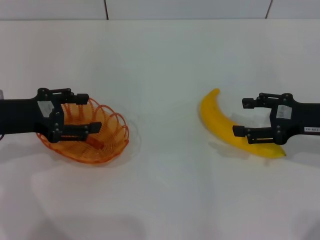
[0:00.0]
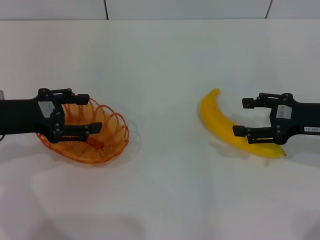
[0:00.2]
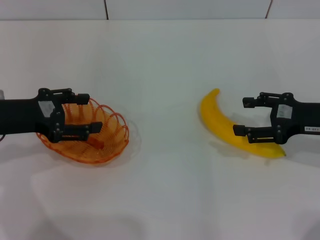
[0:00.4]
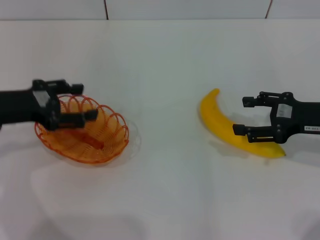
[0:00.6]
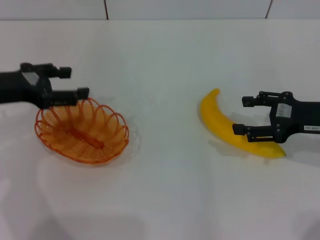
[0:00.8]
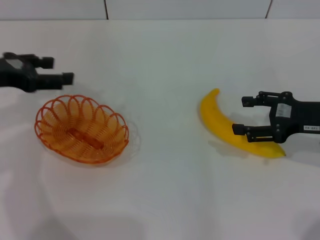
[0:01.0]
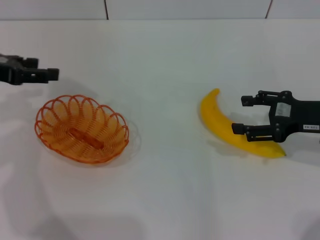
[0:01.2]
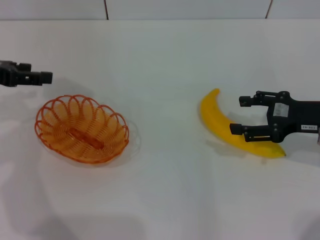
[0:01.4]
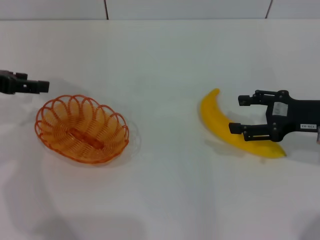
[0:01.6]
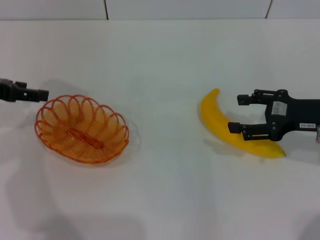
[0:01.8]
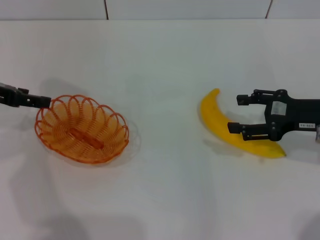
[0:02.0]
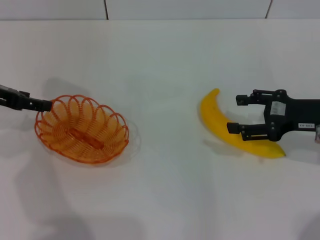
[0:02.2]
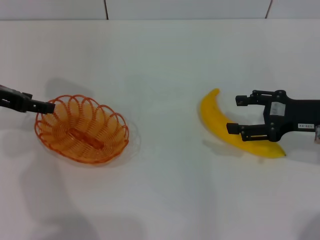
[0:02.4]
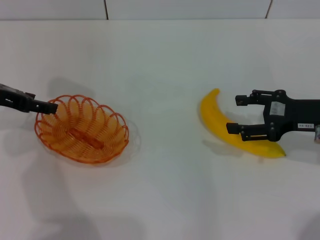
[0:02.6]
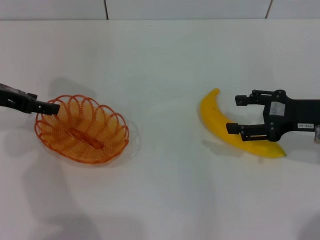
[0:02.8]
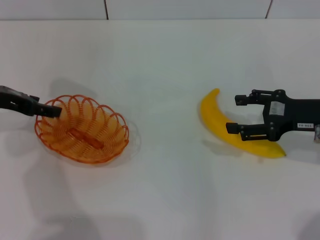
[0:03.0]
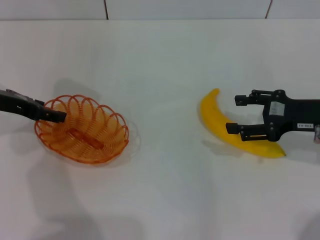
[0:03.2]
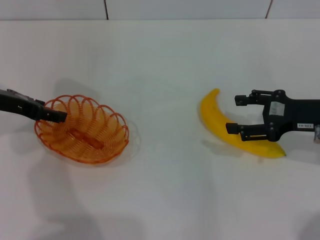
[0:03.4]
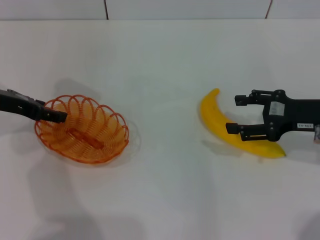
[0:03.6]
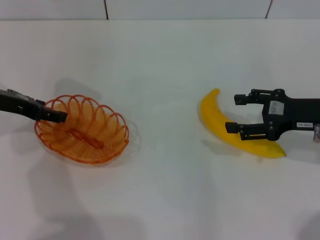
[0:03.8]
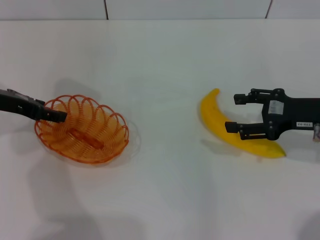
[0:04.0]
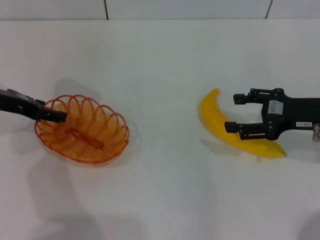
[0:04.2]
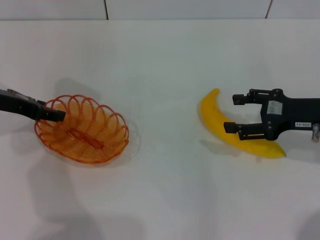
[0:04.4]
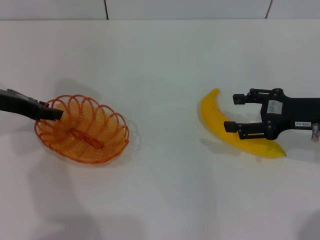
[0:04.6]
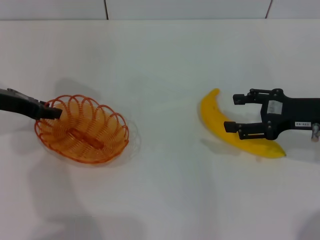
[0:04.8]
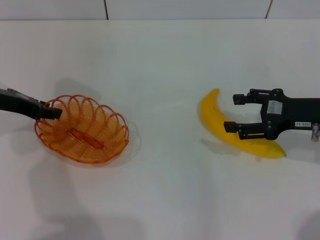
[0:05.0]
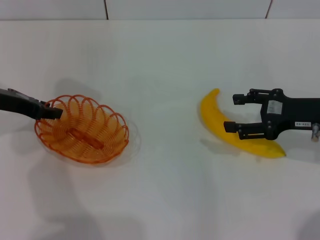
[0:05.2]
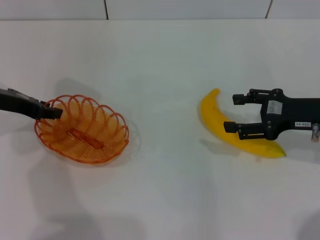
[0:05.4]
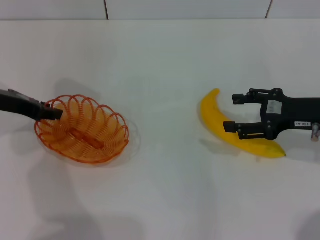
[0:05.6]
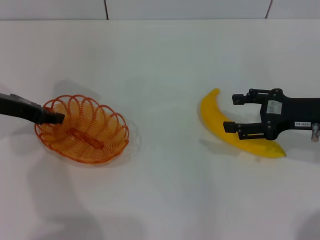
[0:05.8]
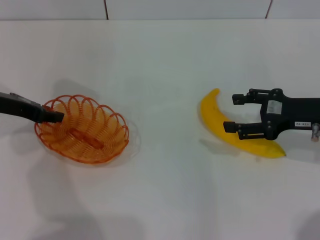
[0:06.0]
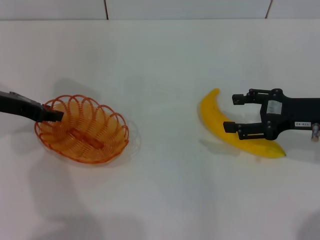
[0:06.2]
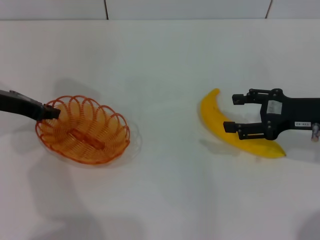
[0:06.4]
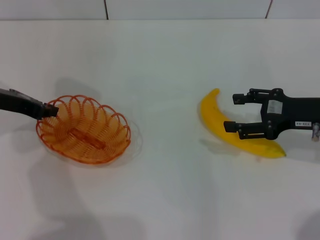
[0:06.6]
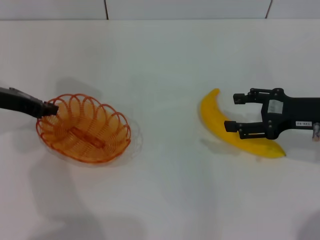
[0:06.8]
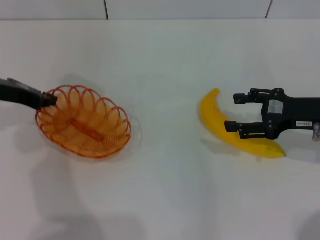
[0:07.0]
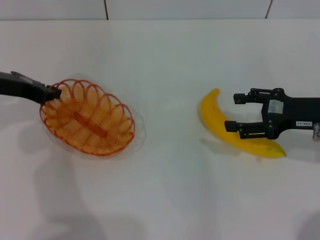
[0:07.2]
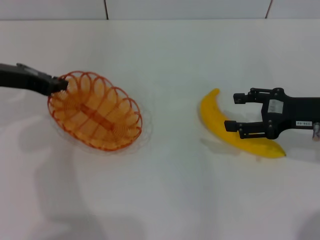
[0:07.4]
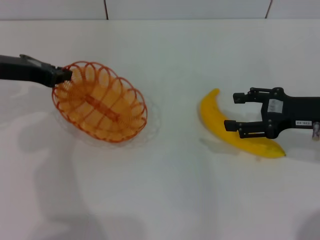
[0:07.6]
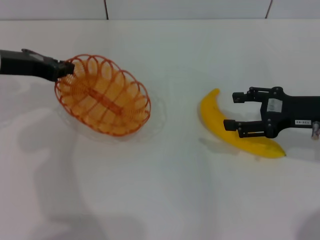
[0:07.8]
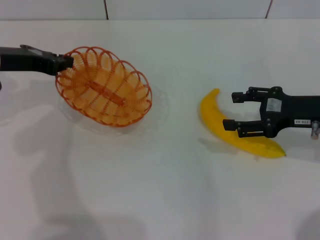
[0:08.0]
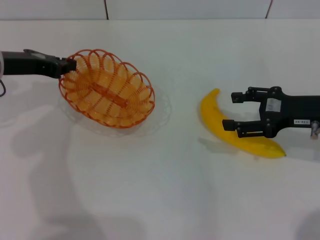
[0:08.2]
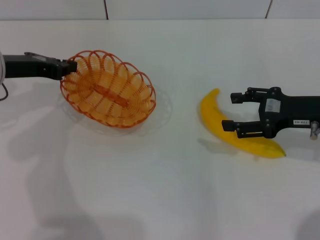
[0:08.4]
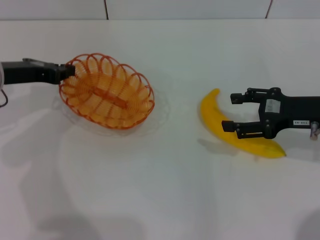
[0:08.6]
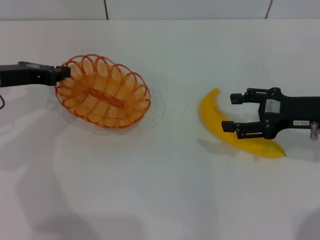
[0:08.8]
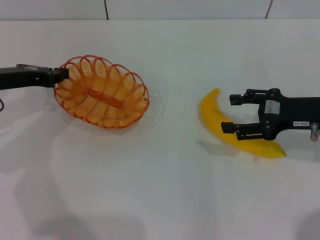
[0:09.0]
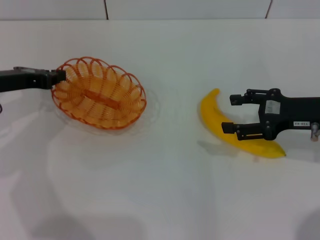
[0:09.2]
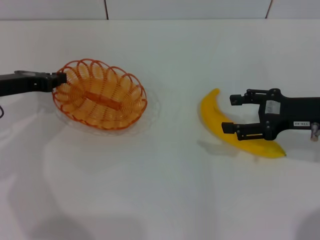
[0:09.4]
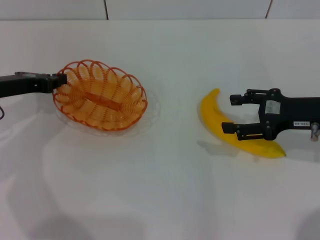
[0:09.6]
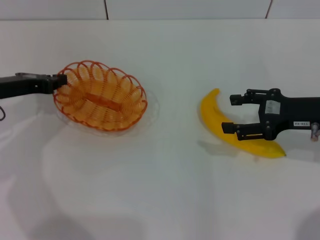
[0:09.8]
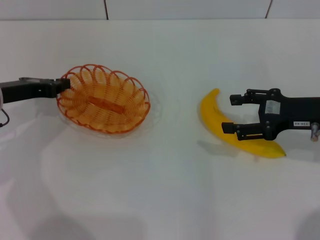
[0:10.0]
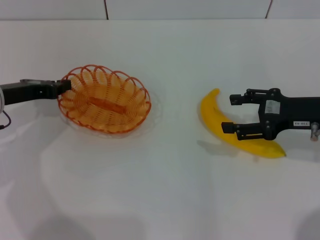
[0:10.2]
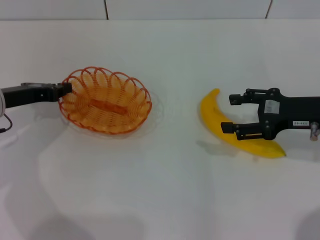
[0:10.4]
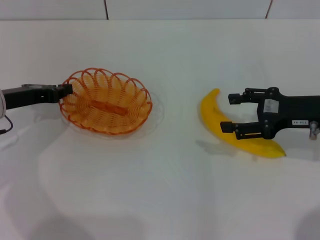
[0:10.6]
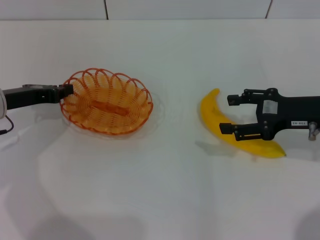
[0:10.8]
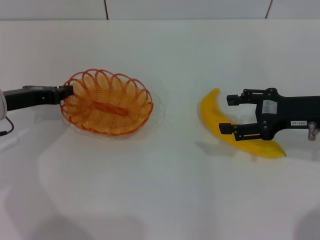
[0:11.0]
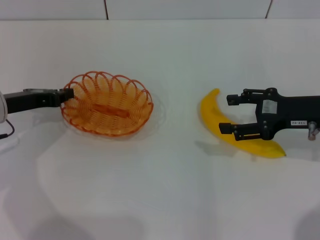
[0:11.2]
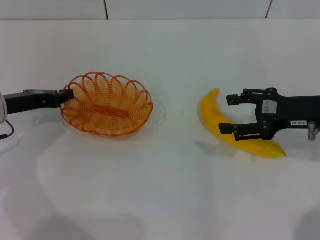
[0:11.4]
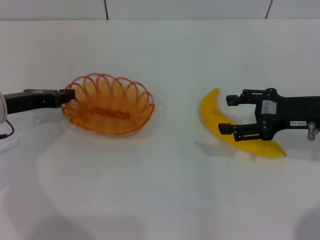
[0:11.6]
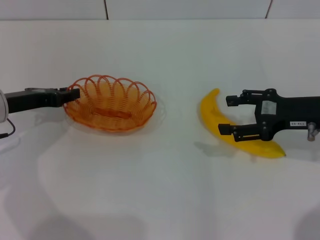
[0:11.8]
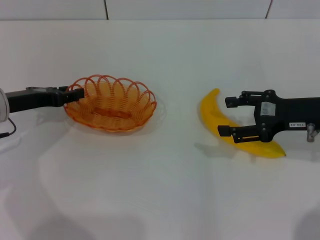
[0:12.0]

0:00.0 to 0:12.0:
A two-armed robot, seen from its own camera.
Step, 0:00.0 to 0:07.8: Pick up the basket with the left gripper.
0:00.0 to 0:01.6: The left gripper goes approximately 5 cm upward.
0:01.6 to 0:03.0: There are only small adjustments of the grippers.
0:03.0 to 0:04.4: Neither gripper changes place.
0:04.4 to 0:06.0: The left gripper closes.
0:06.0 to 0:07.6: The left gripper closes its fingers.
0:07.6 to 0:09.0: The grippers make only small movements.
0:09.0 to 0:10.4: The grippers make only small movements.
0:10.4 to 0:12.0: The left gripper opens up.

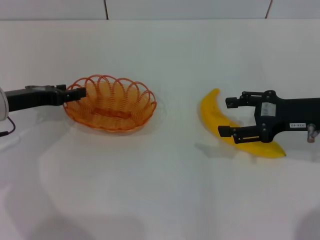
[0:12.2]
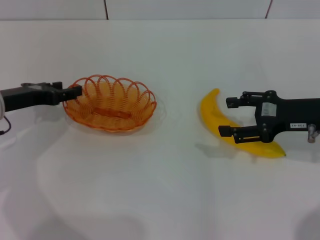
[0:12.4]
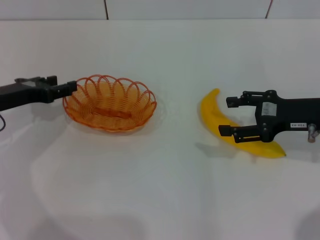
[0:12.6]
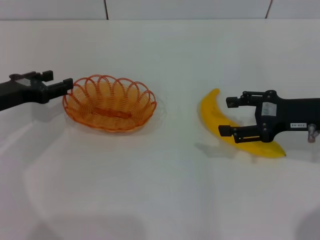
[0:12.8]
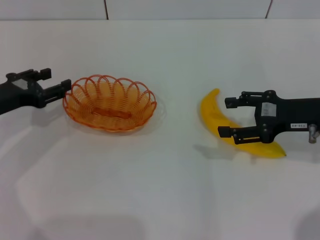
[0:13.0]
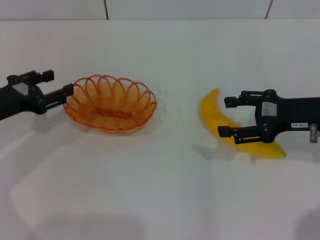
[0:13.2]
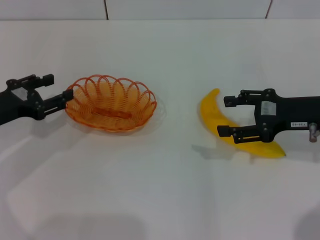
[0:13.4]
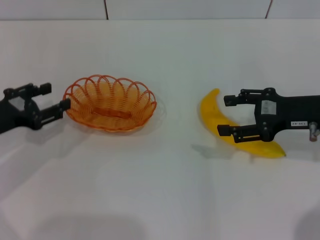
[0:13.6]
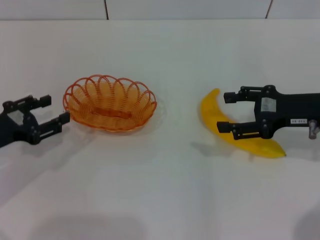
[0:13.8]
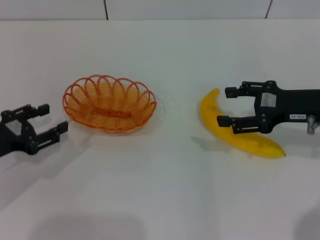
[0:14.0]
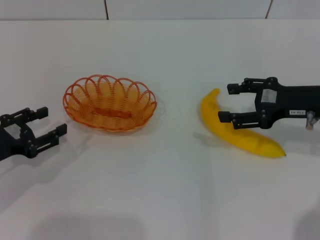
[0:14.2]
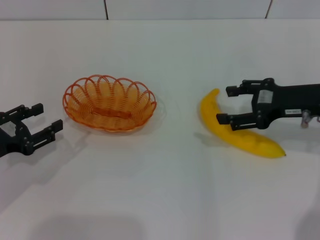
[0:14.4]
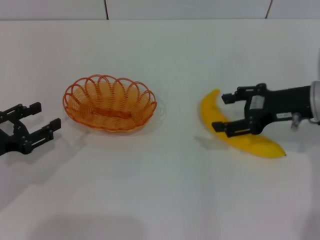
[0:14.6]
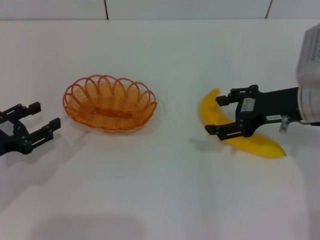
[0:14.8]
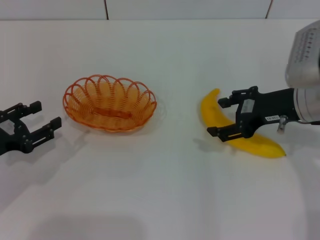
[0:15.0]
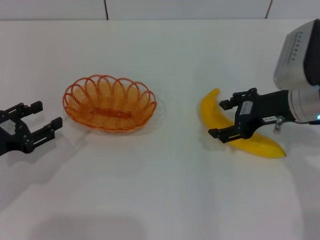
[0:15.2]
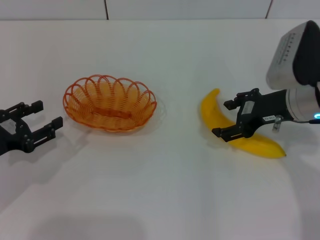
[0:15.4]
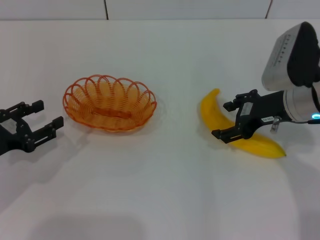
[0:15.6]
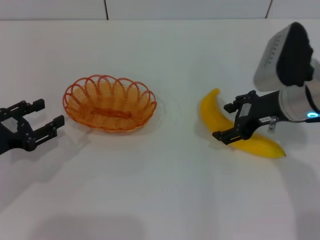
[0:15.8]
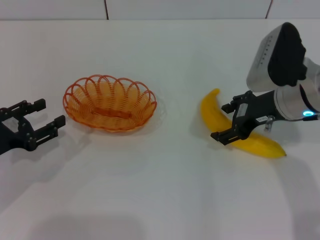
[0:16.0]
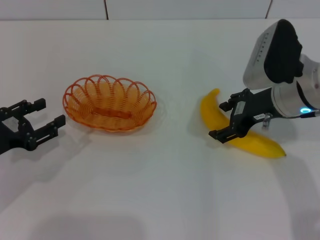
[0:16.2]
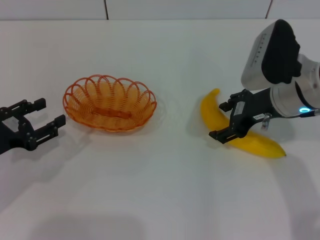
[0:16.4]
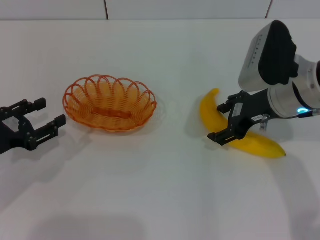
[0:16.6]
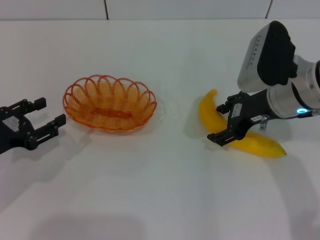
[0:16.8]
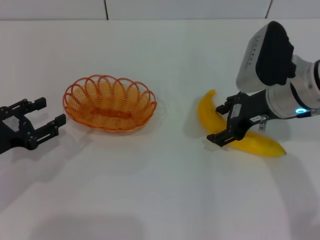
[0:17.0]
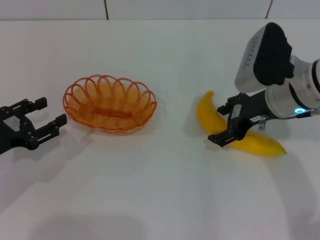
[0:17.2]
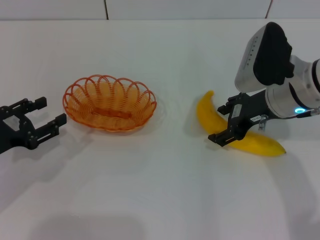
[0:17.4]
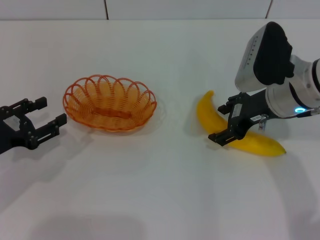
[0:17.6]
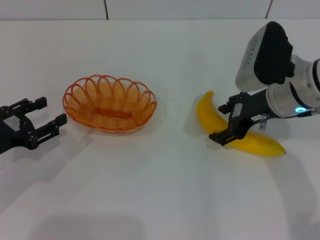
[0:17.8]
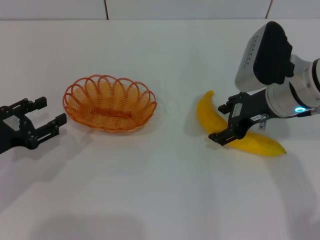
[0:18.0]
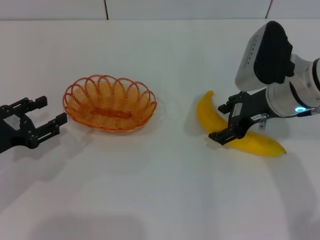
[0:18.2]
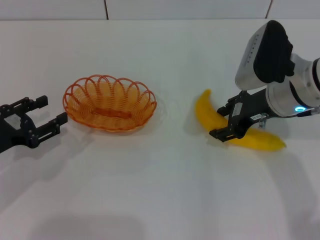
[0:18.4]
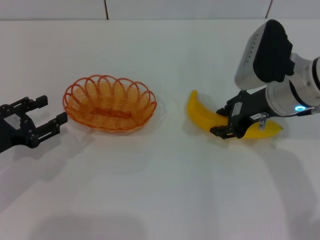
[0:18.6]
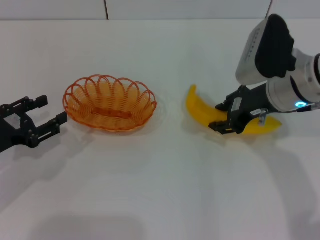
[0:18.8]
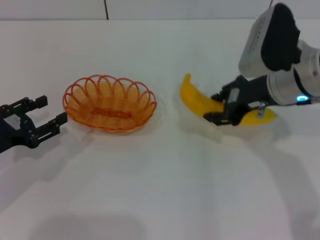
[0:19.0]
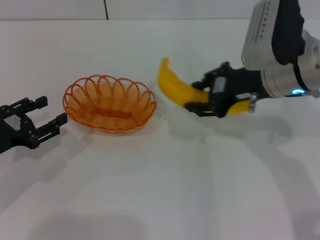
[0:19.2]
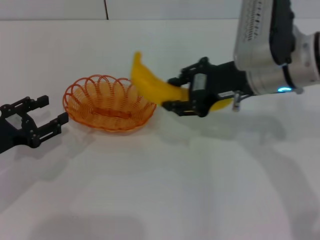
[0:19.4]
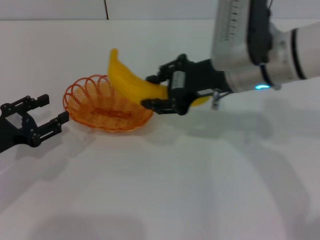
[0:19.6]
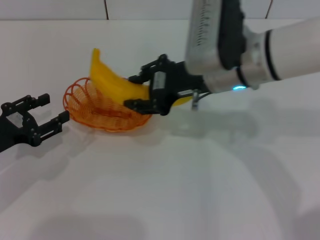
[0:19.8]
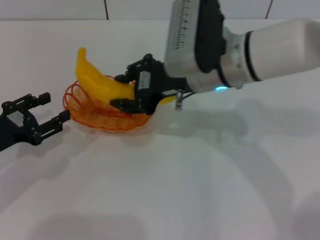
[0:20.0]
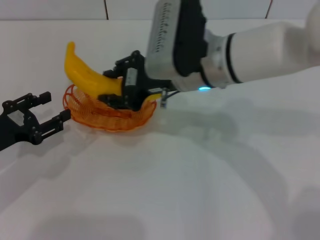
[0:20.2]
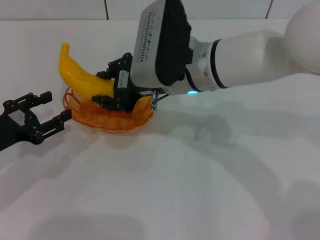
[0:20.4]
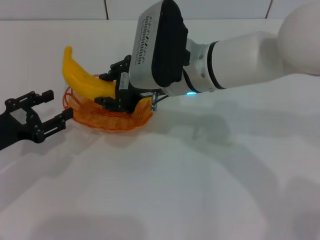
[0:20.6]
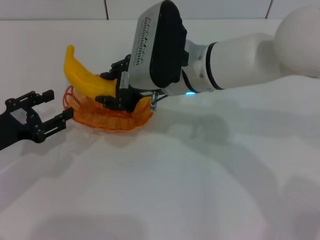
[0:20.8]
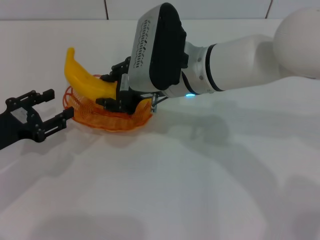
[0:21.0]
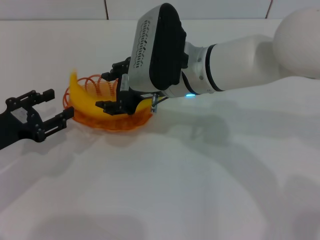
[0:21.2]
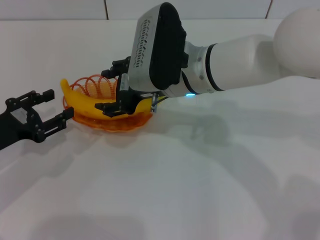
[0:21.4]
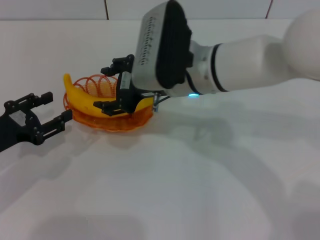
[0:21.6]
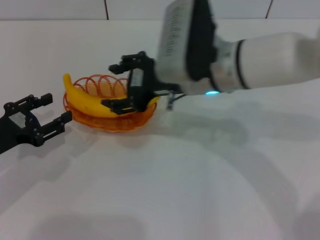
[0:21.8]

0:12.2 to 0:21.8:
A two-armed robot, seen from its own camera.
Step, 0:12.4 to 0:19.2: Pick up the banana with the right gripper.
Step, 0:19.4 to 0:21.6: Place the banana into the basket with the right gripper.
0:12.2 to 0:13.8: The left gripper goes some 10 cm backward.
0:13.8 to 0:15.4: The right gripper goes roughly 5 cm to the left.
0:15.4 to 0:17.0: The grippers stay close to where they were, moving slightly.
0:17.0 to 0:18.6: The right gripper closes.
0:18.6 to 0:20.2: The right gripper is displaced to the left by about 15 cm, and closes.
0:20.2 to 0:21.8: The right gripper opens its fingers.

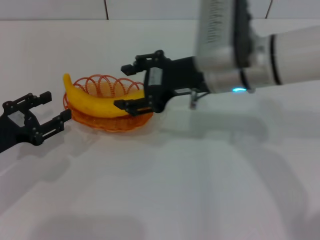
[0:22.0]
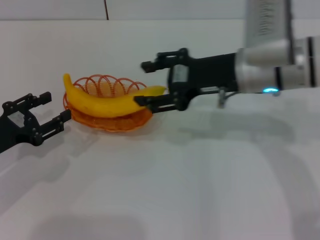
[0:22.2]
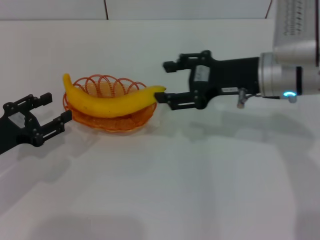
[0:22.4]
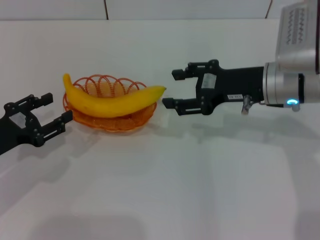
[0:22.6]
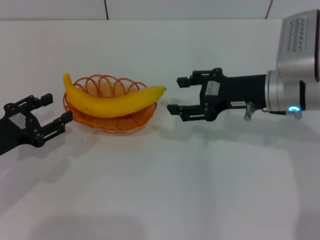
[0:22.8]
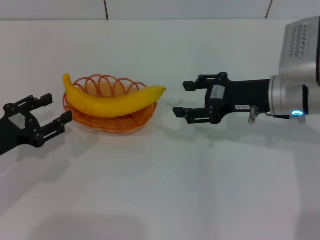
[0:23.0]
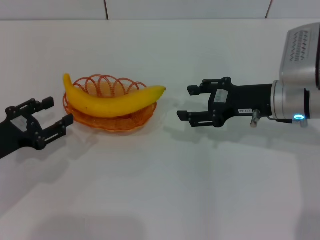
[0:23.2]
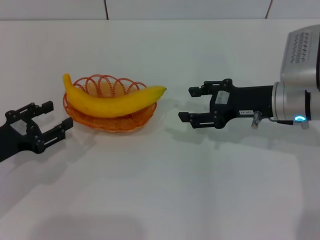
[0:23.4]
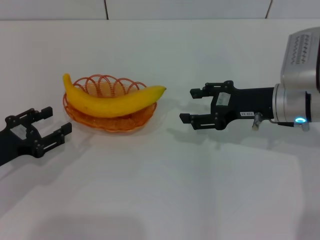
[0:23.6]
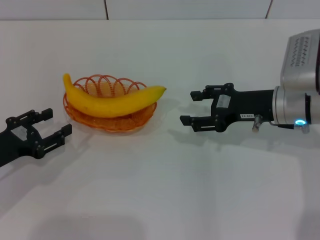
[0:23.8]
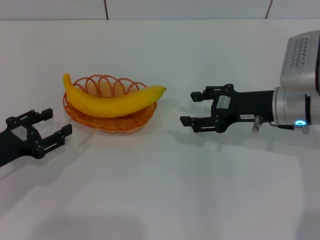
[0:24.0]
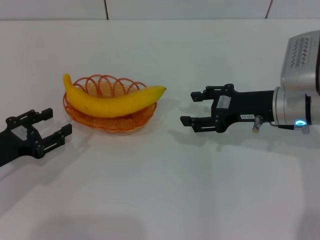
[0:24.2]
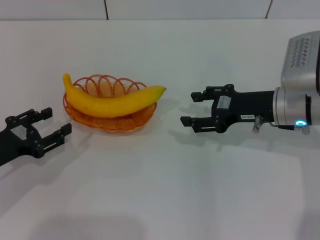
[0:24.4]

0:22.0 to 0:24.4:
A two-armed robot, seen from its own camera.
0:22.0 to 0:23.2: The right gripper goes approximately 15 cm to the right and downward.
0:23.2 to 0:24.4: Both grippers stay about where they are.
